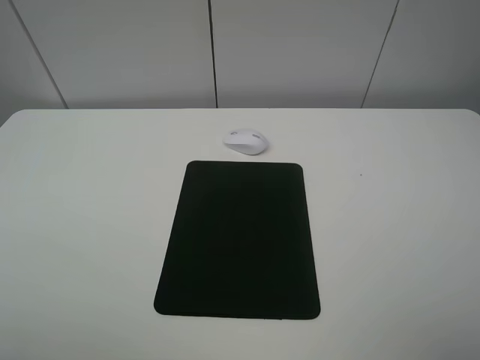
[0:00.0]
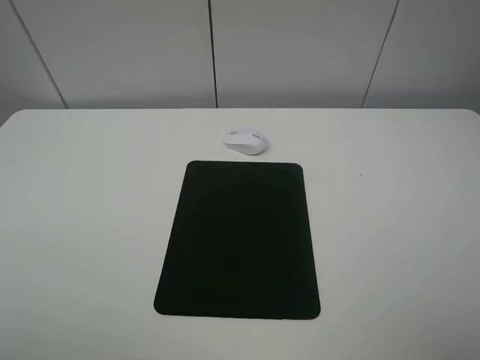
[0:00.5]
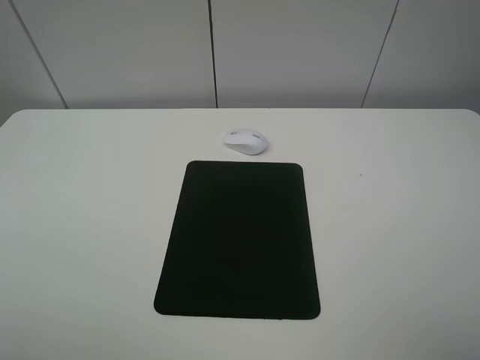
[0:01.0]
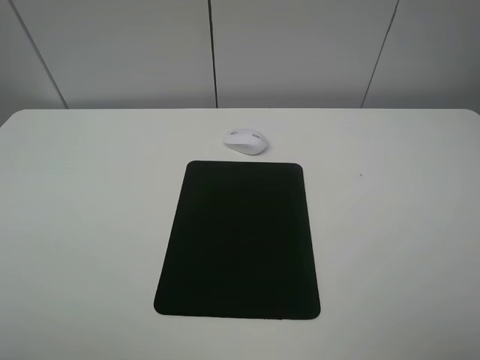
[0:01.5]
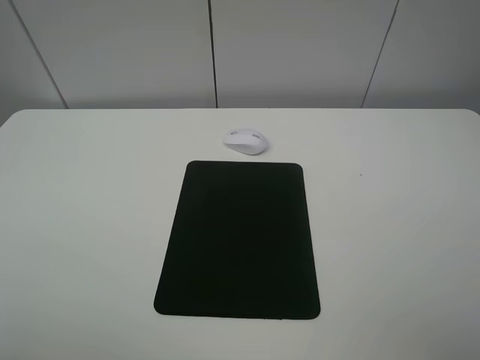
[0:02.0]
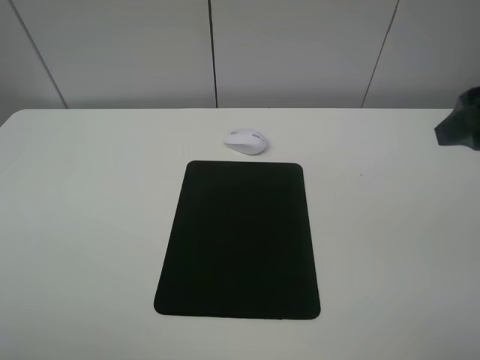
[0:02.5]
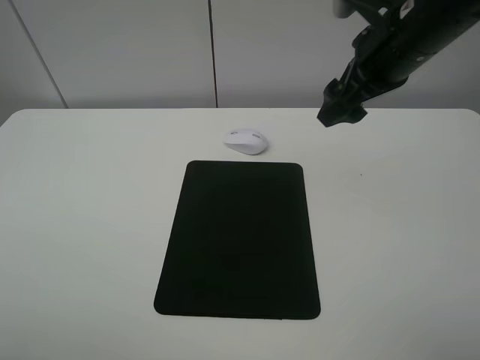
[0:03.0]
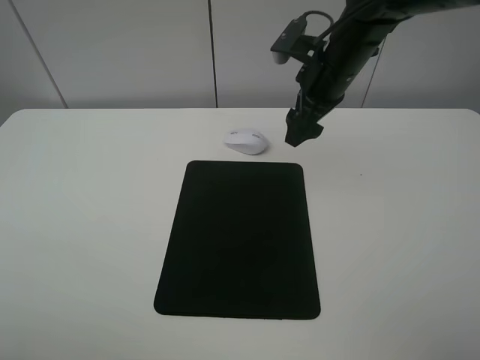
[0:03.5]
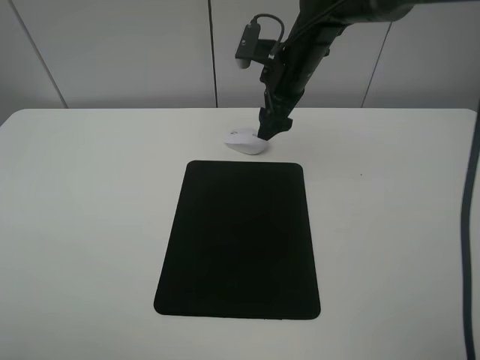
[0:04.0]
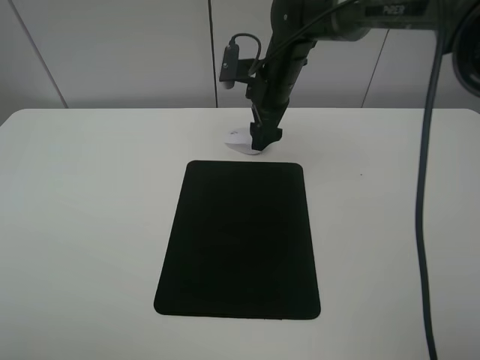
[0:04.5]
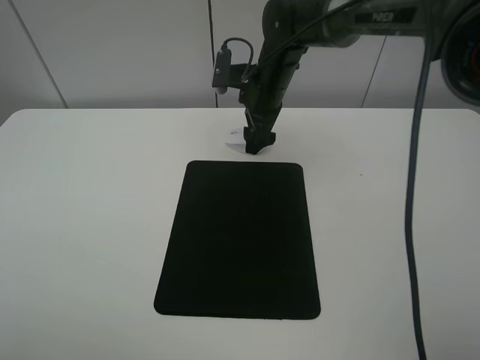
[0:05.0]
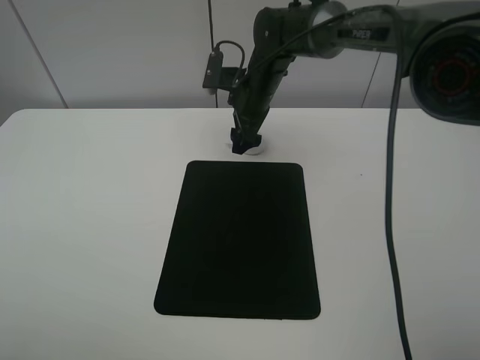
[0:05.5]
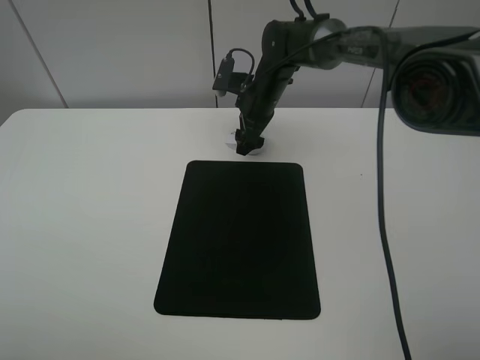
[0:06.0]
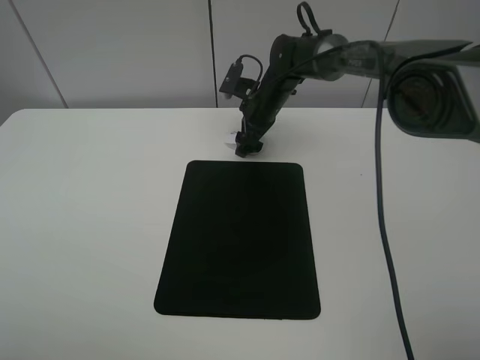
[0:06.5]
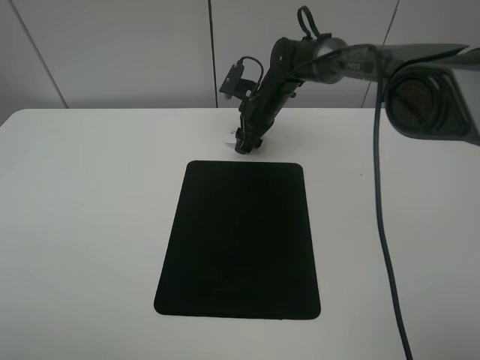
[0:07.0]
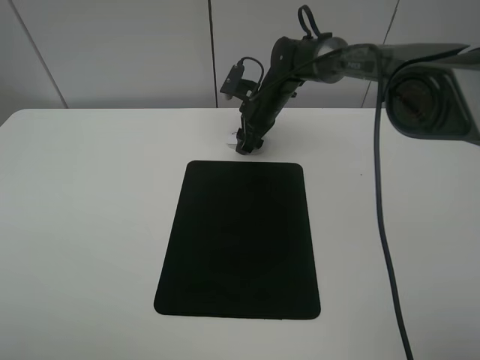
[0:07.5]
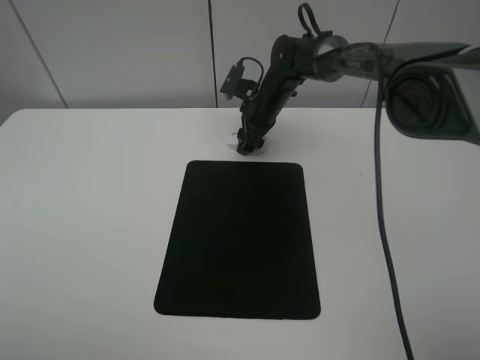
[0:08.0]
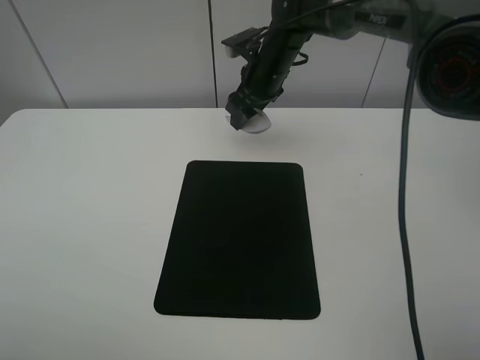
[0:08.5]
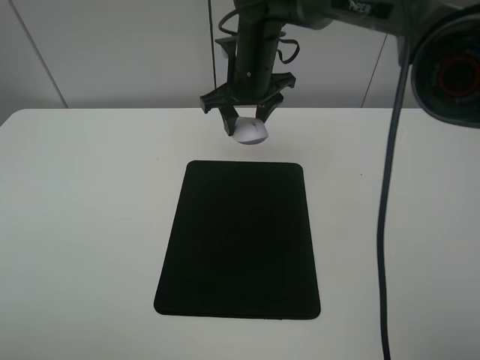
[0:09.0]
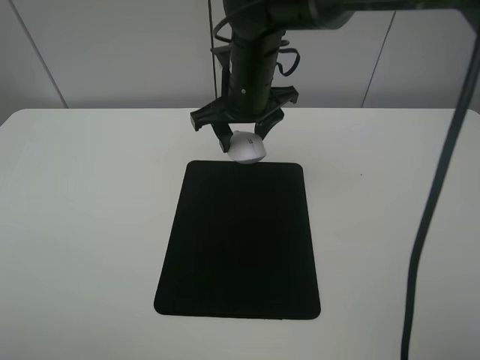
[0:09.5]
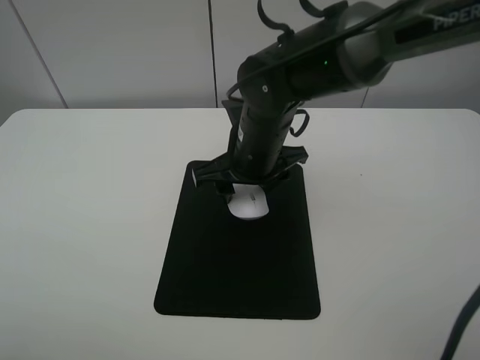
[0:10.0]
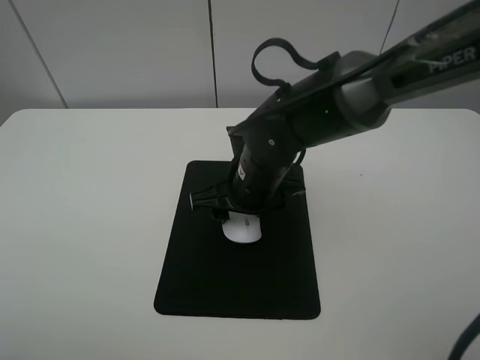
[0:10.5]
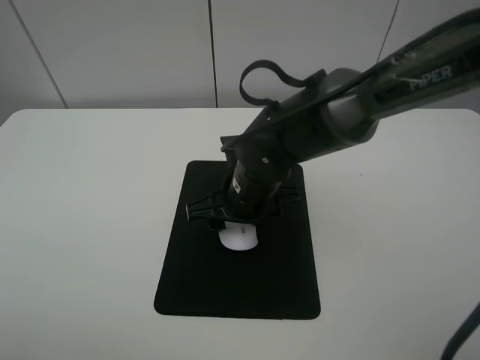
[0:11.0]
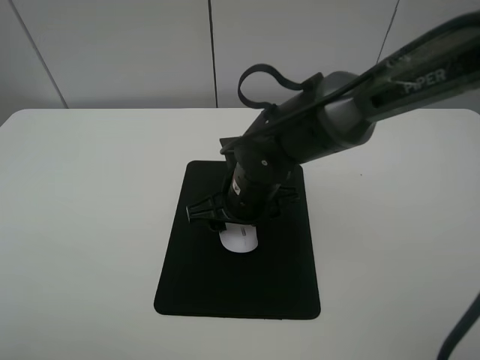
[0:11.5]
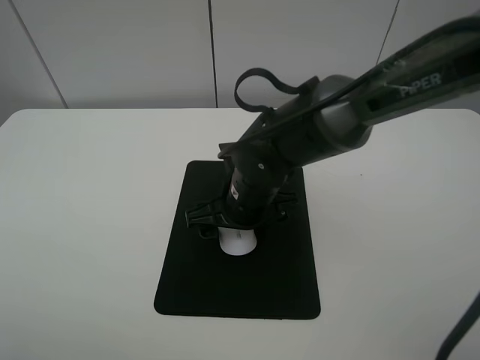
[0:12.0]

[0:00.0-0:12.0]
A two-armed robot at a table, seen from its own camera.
Step, 0:00.0 to 0:07.5: Grasp the mouse with the right gripper.
0:02.0 to 0:04.0: The right gripper moves forward and to the left, roughly 40 cm.
0:04.0 to 0:06.0: The right gripper is displaced downward by approximately 5 cm.
0:06.0 to 0:08.0: The right gripper closes up.
0:08.0 to 0:10.0: The right gripper is displaced backward by roughly 20 cm.
0:10.0 to 0:12.0: The right gripper moves about 5 cm, and opens.

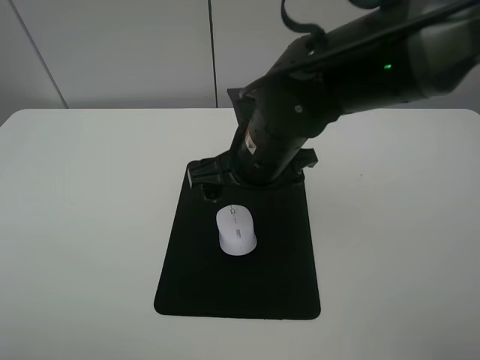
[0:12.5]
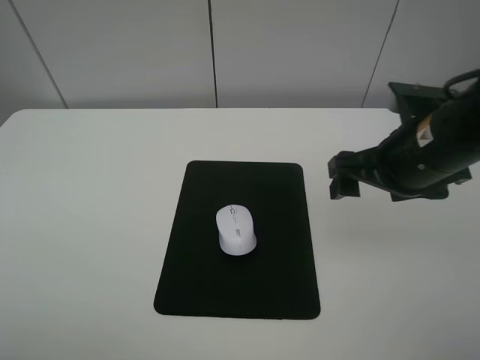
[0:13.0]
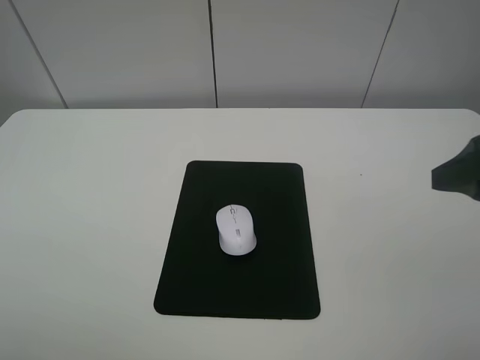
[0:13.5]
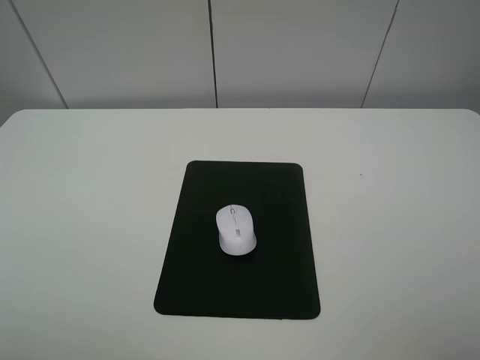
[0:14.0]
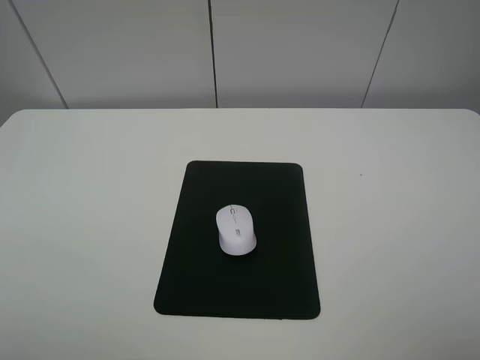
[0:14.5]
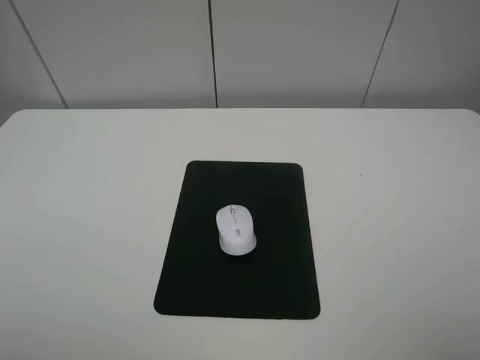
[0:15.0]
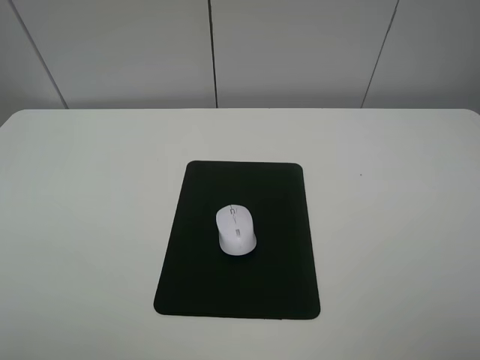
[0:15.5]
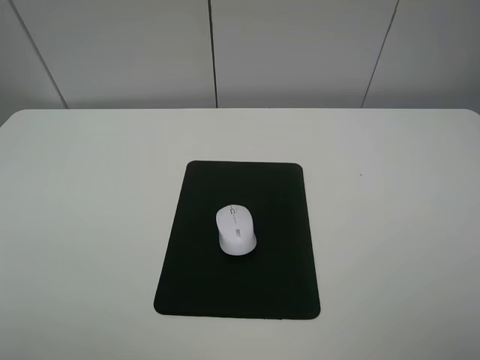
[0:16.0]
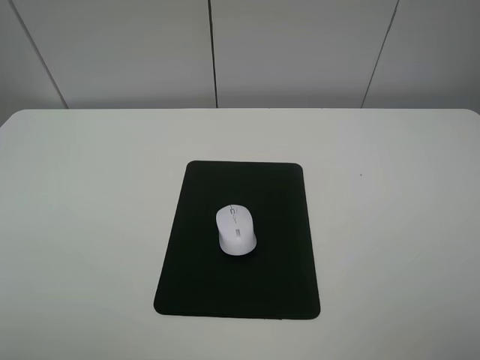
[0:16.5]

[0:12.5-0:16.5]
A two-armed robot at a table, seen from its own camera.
0:12.5 to 0:14.5: The right gripper is displaced backward, to the right and upward by about 40 cm.

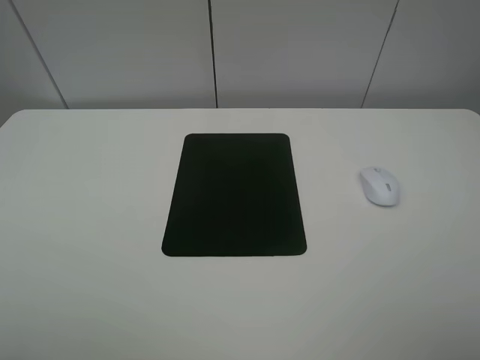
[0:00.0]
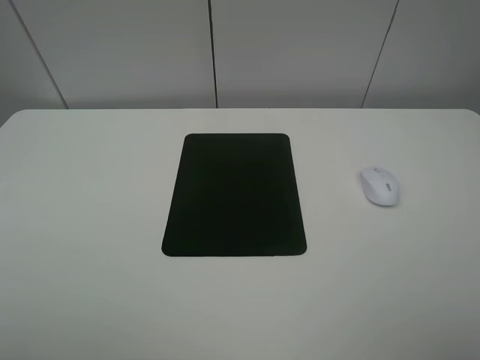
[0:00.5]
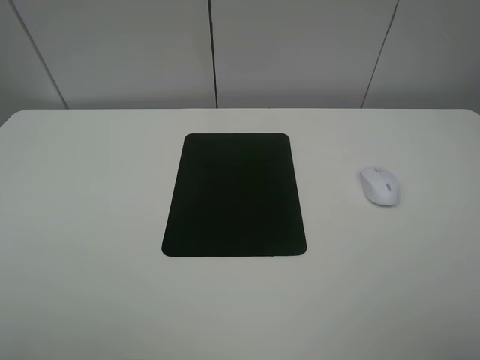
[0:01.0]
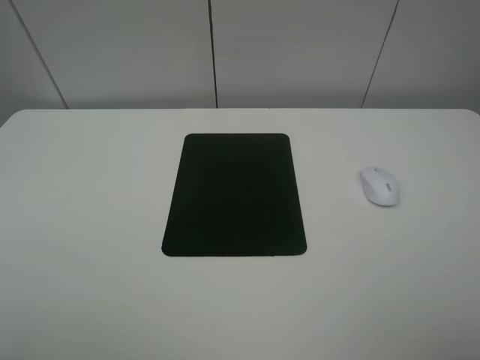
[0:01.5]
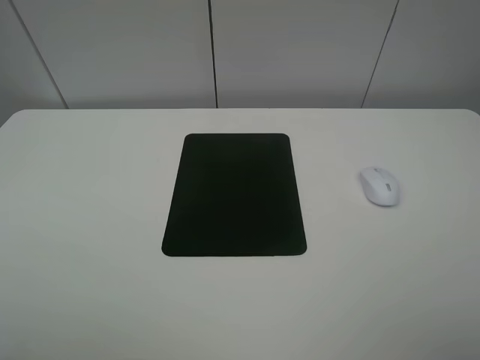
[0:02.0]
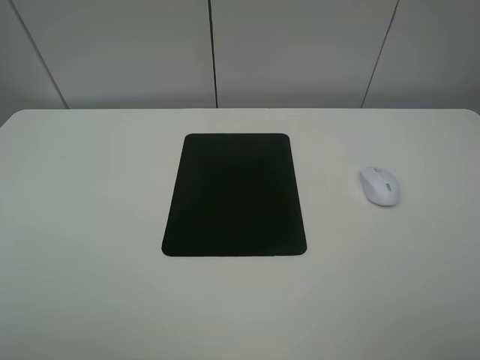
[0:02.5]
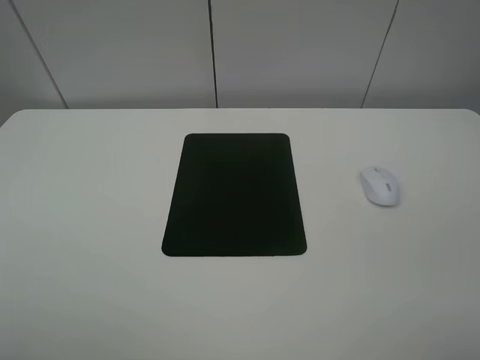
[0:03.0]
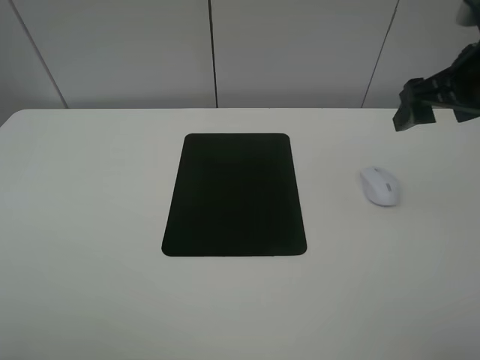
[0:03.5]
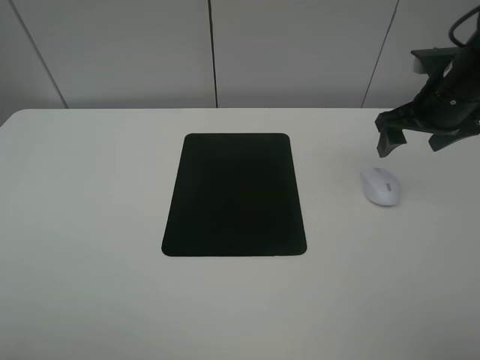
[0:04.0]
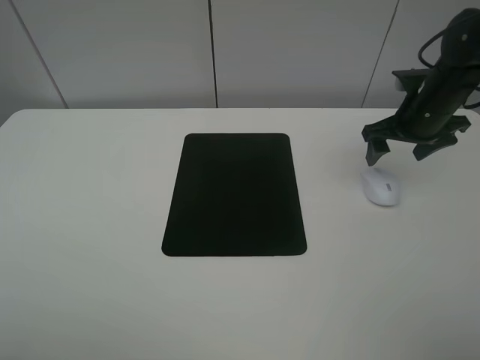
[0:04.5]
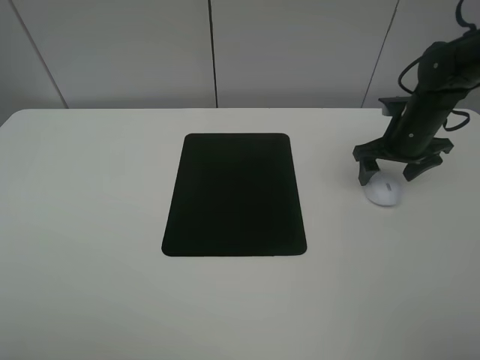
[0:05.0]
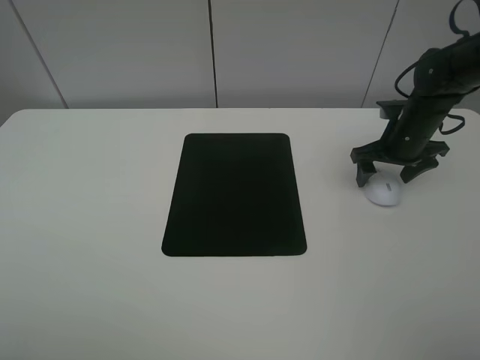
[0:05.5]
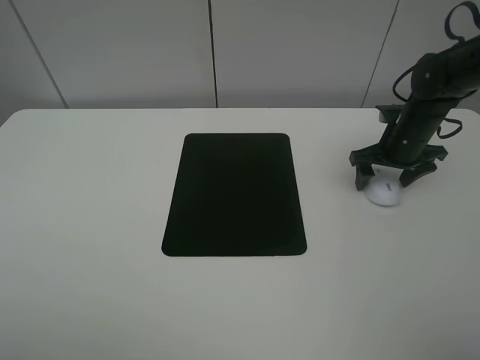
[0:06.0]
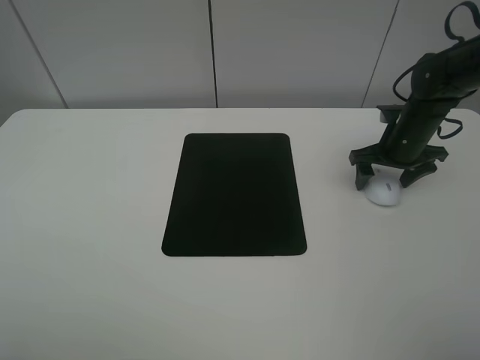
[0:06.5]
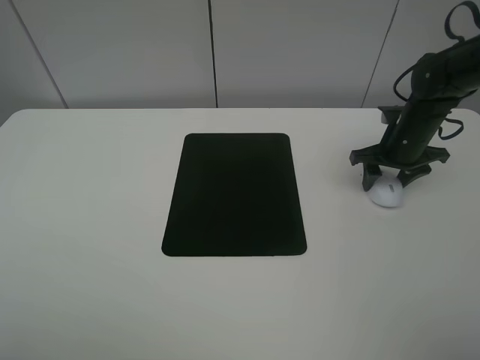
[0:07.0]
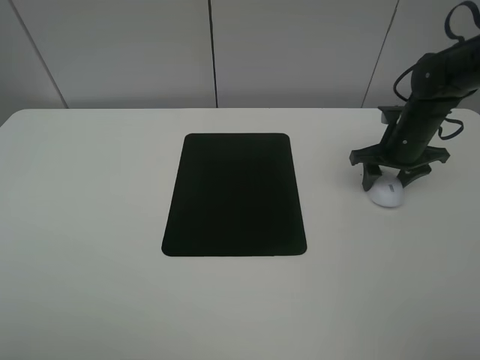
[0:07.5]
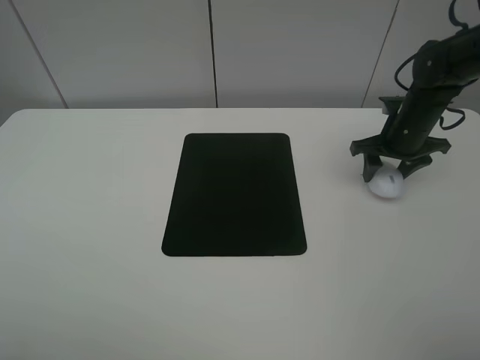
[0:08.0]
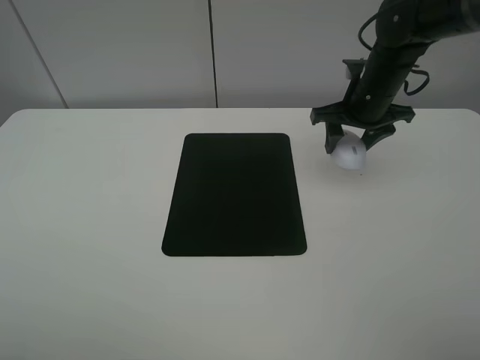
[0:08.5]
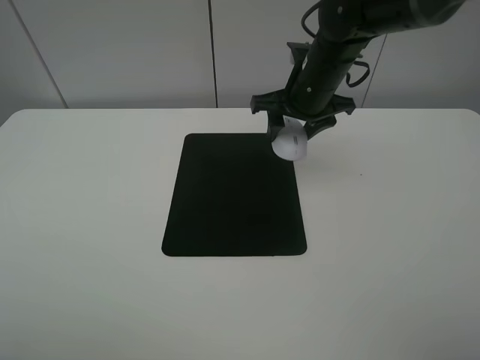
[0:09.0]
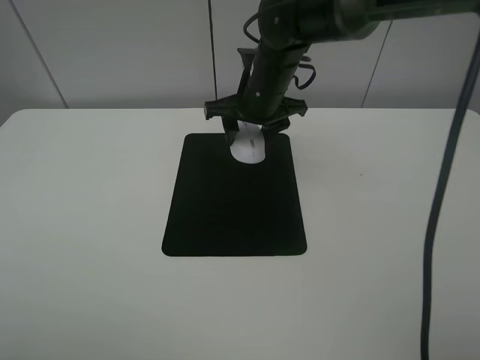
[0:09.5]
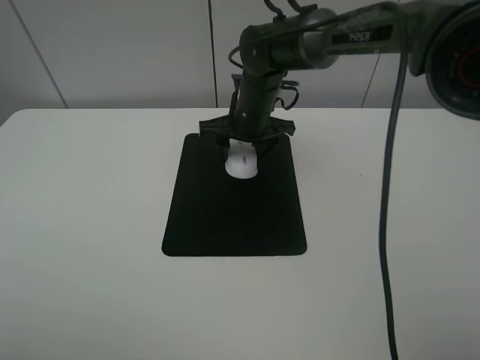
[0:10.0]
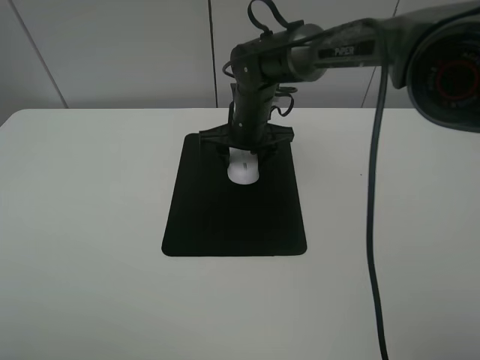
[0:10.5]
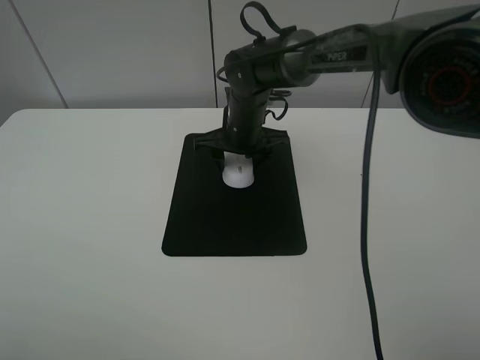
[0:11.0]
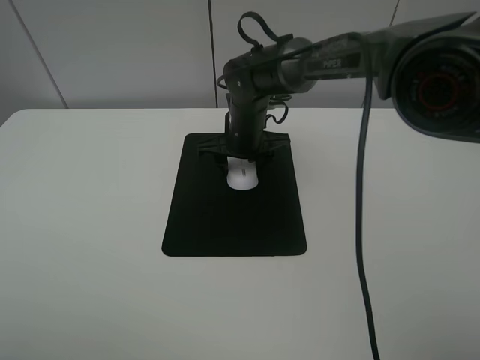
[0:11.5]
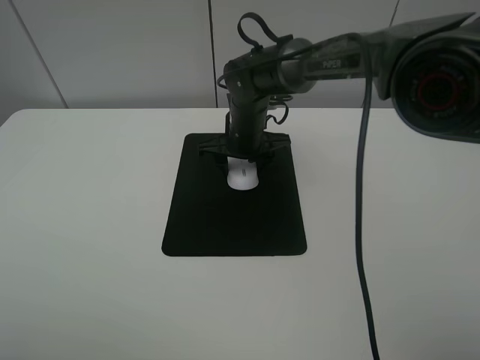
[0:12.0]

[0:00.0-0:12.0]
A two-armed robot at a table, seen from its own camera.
Step, 0:00.0 to 0:07.0: Grasp the mouse with the right gripper.
0:00.0 to 0:02.0: Neither gripper changes place.
0:02.0 to 0:04.0: The right gripper shifts some 35 cm forward.
0:04.0 to 0:06.0: The right gripper heads downward, covering roughly 10 cm.
0:06.0 to 0:08.0: The right gripper closes its fingers.
0:08.0 to 0:10.0: The right gripper moves to the left, approximately 25 cm.
0:10.0 to 0:12.0: The grippers make only small movements.
